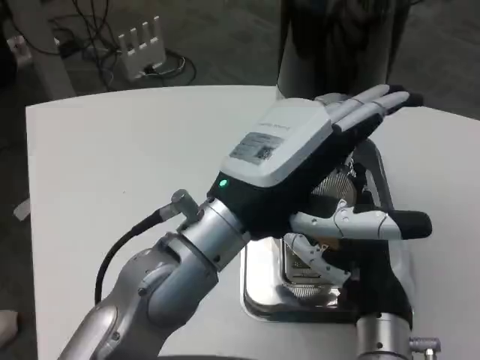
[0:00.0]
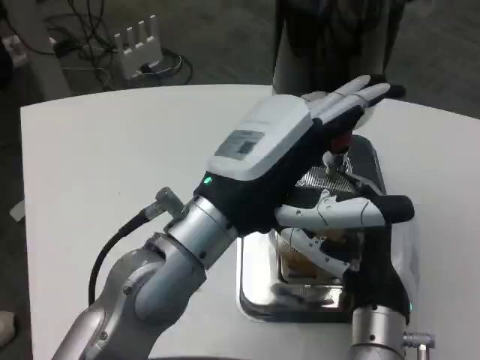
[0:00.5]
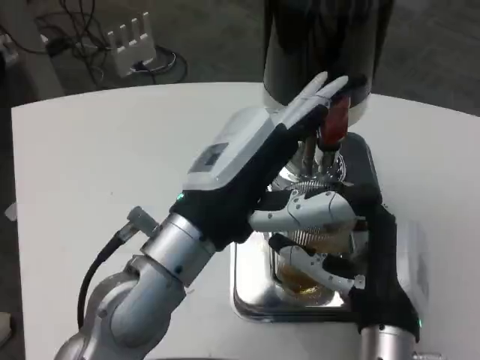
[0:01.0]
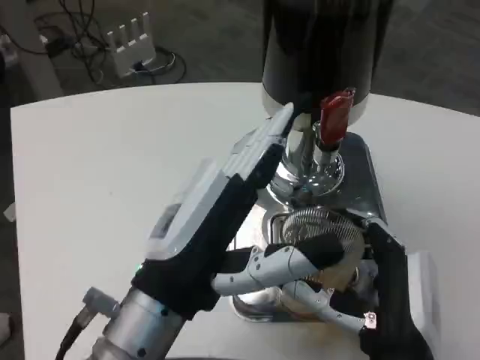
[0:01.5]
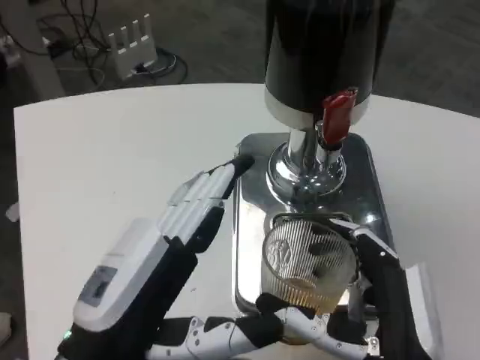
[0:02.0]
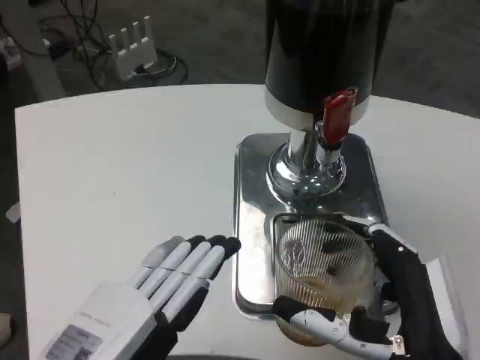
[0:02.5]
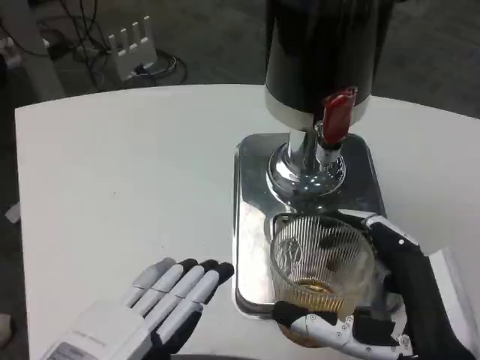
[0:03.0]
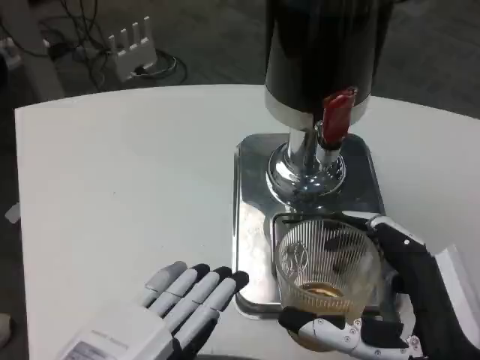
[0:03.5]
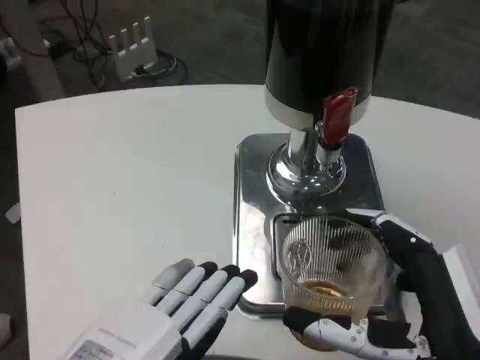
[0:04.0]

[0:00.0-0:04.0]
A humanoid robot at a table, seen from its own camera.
Task of the whole recording: Grasp the cup under the faucet to collect the drink, then remove the cup.
0:00.0 to 0:02.0: The left hand is displaced backward, to the left and downward by approximately 15 cm. The right hand shifts roughly 10 cm backward.
0:02.0 to 0:04.0: The right hand shifts by roughly 5 cm; the left hand shifts by about 5 cm.

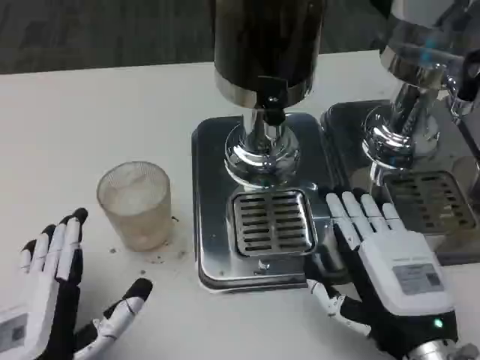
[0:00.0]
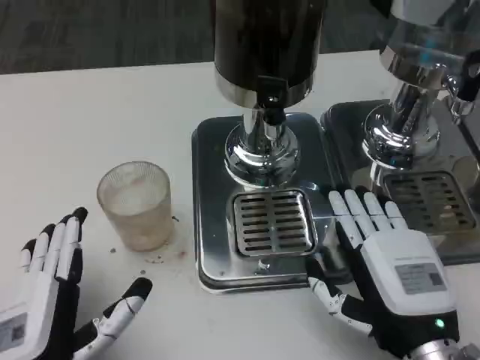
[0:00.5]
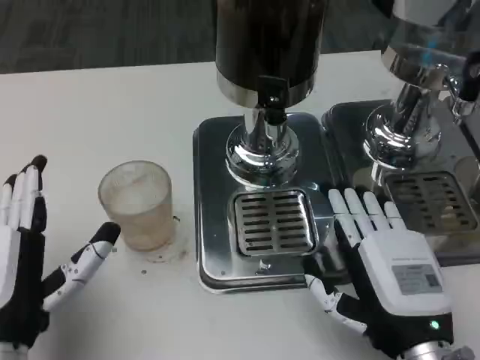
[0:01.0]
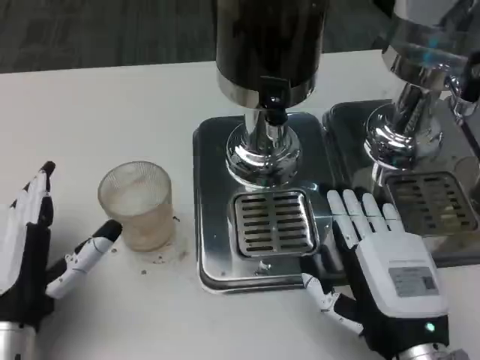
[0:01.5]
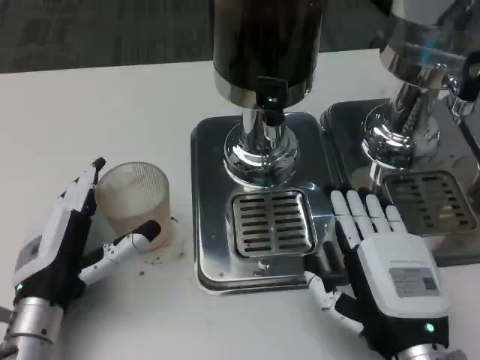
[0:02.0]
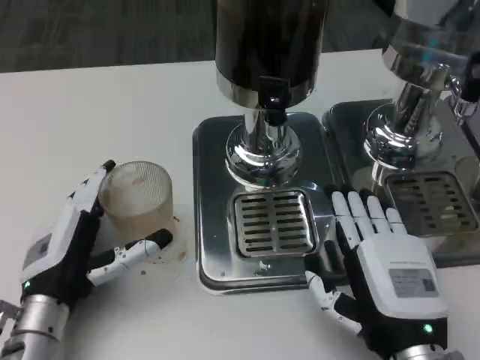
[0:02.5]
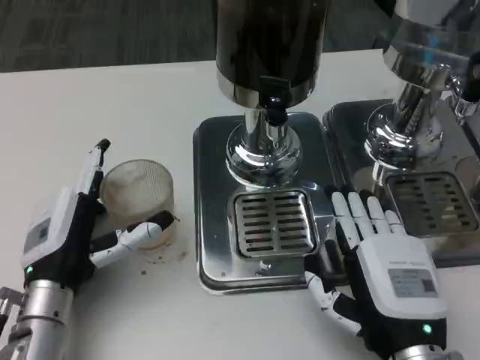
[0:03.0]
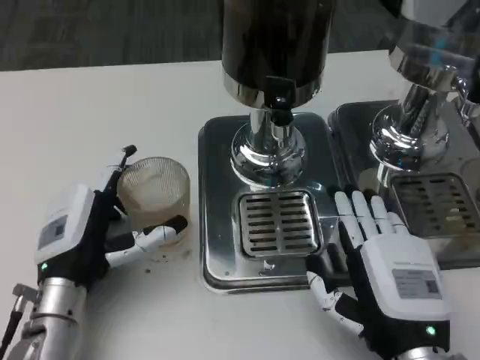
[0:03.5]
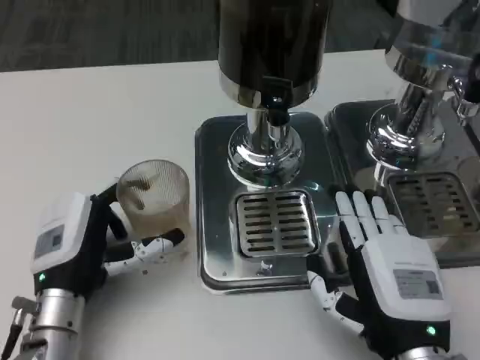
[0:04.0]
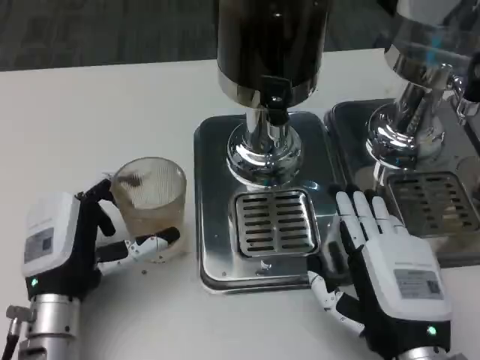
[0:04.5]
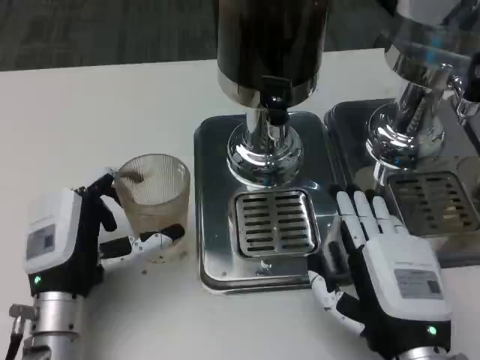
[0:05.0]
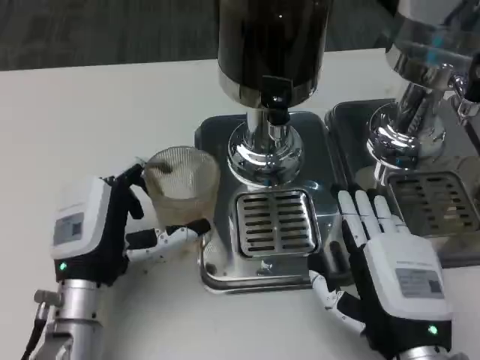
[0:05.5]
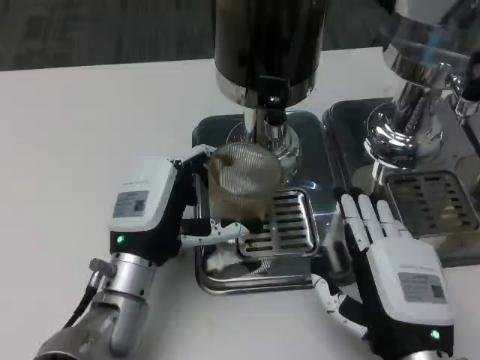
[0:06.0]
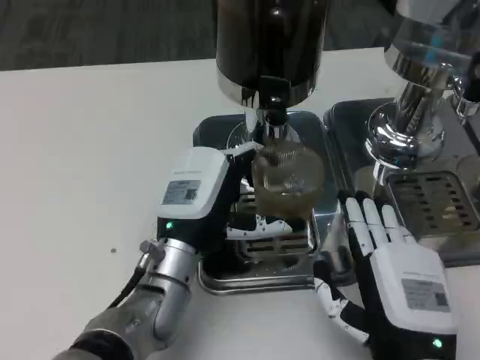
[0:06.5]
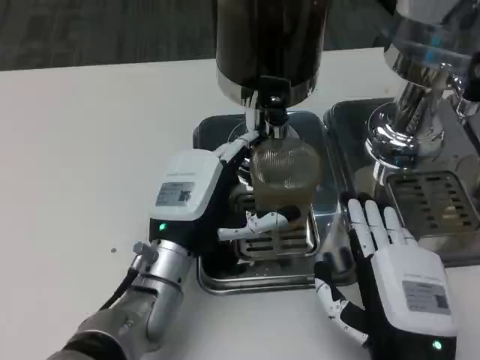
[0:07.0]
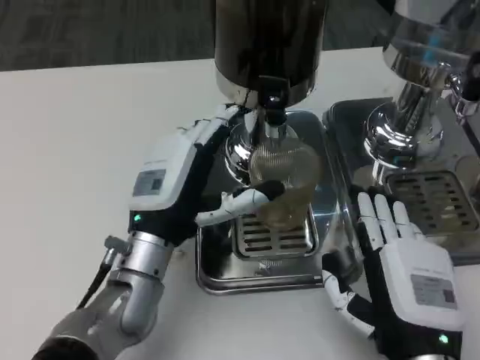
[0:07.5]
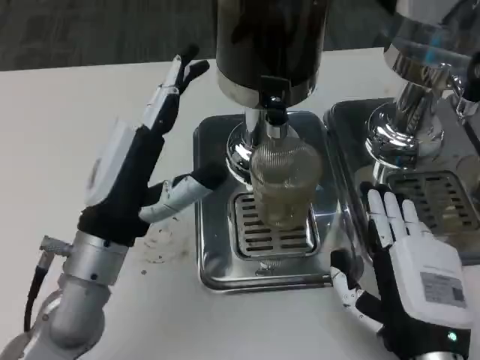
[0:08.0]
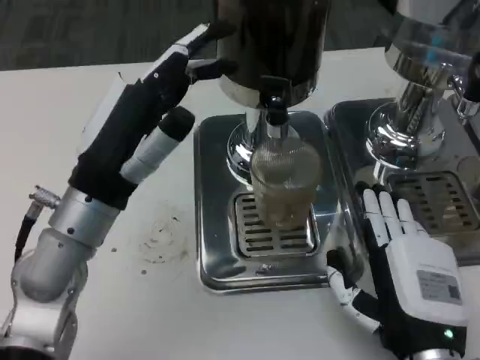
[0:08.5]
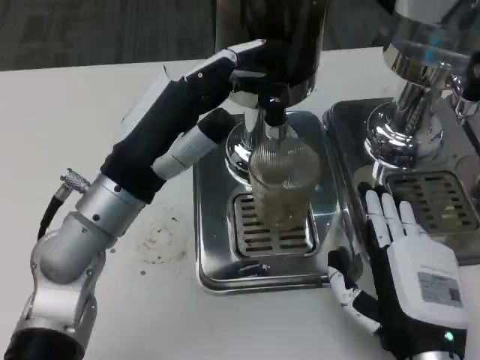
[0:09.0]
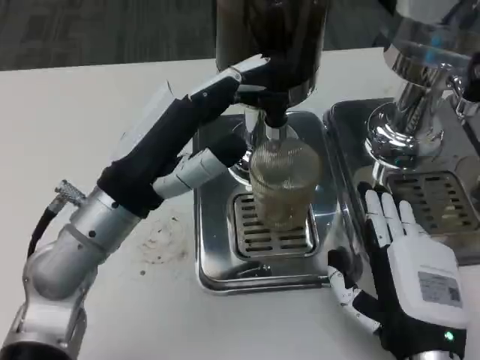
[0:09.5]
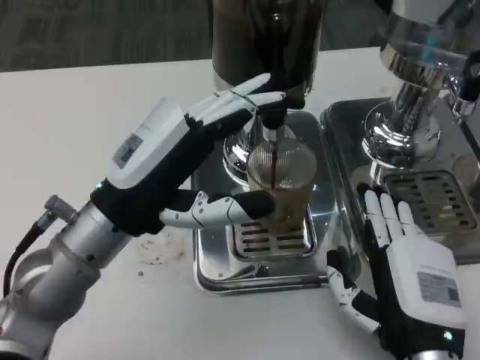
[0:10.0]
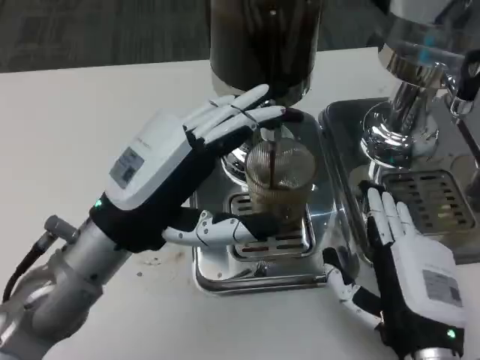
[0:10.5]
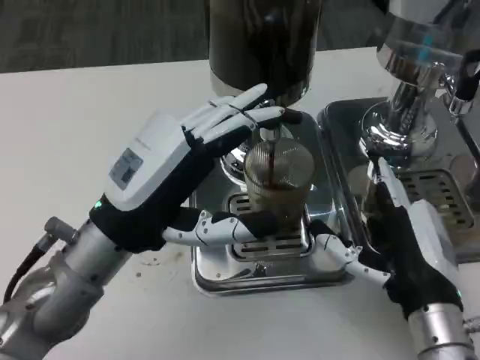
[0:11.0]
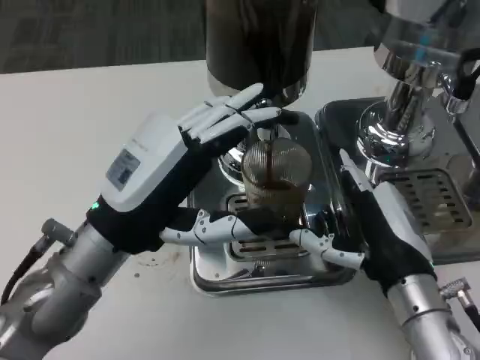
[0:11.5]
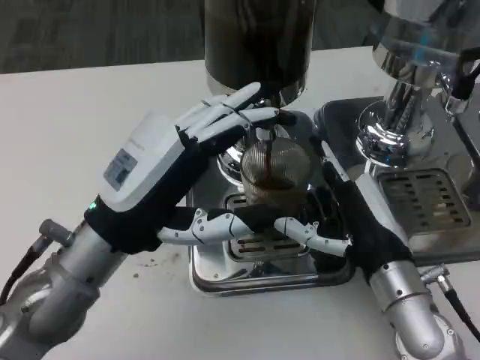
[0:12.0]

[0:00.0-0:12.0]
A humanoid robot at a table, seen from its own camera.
Task of the whole recording: Grasp the cup under the faucet to collect the drink, then remove the cup.
0:00.0 to 0:02.0: The left hand travels forward by some 10 cm.
0:04.0 to 0:06.0: The left hand goes roughly 5 cm to the right.
0:06.0 to 0:08.0: The left hand heads upward, covering some 5 cm.
0:10.0 to 0:12.0: The right hand is displaced forward by roughly 10 cm.

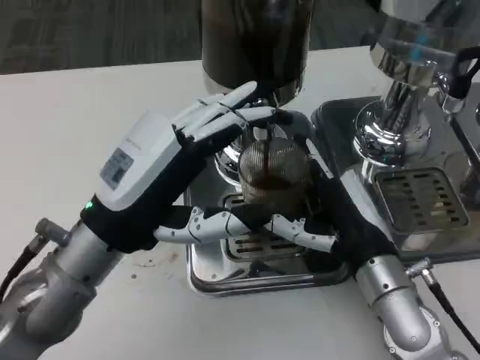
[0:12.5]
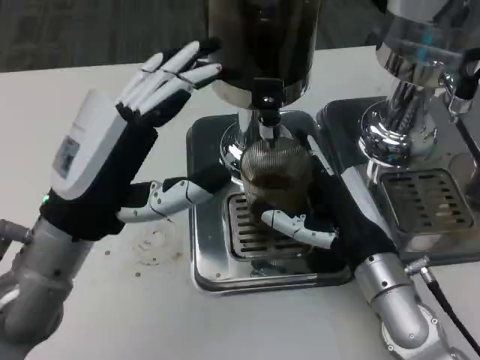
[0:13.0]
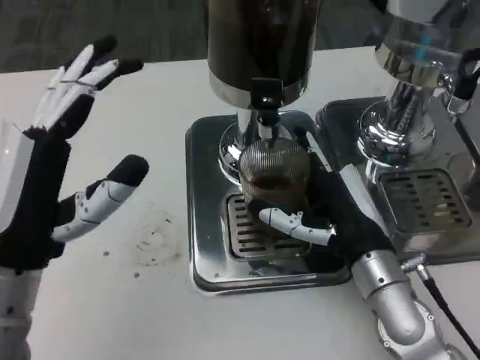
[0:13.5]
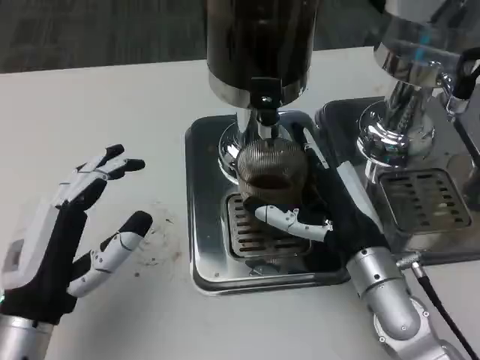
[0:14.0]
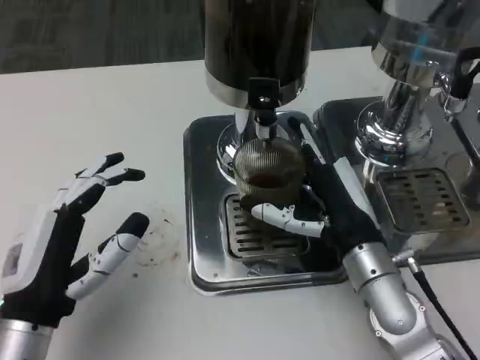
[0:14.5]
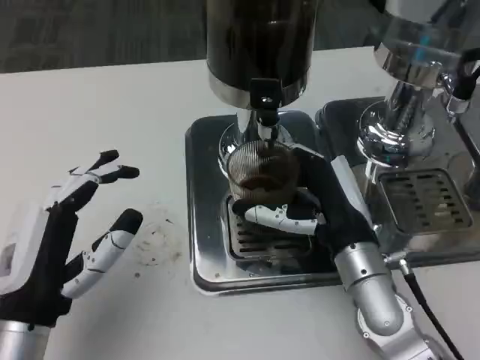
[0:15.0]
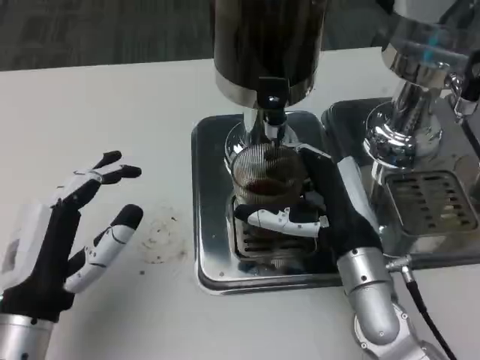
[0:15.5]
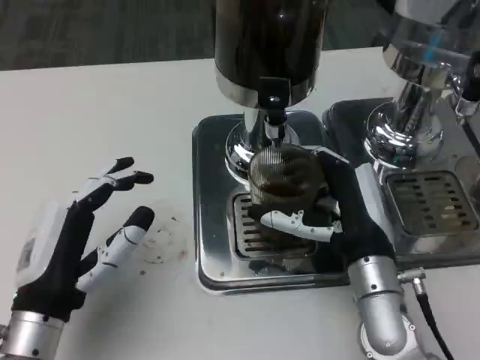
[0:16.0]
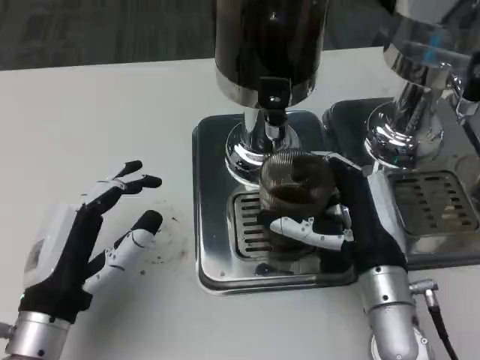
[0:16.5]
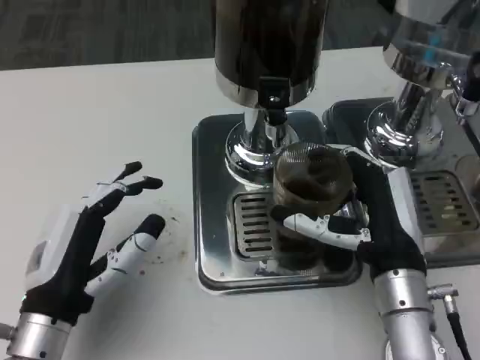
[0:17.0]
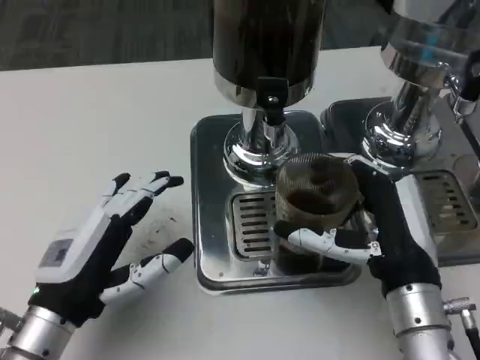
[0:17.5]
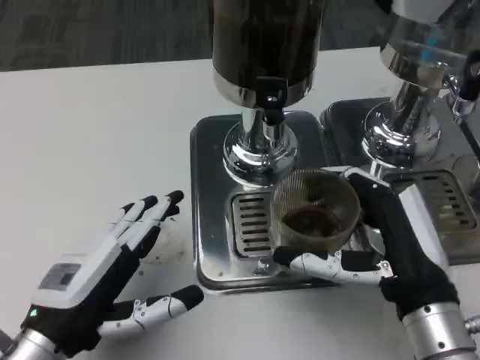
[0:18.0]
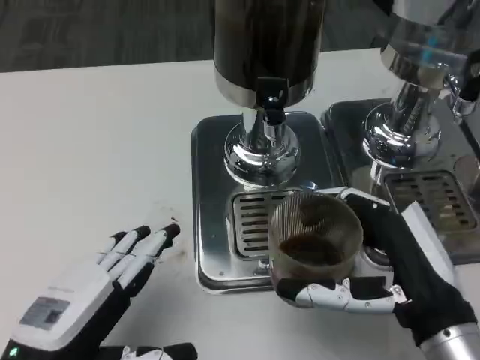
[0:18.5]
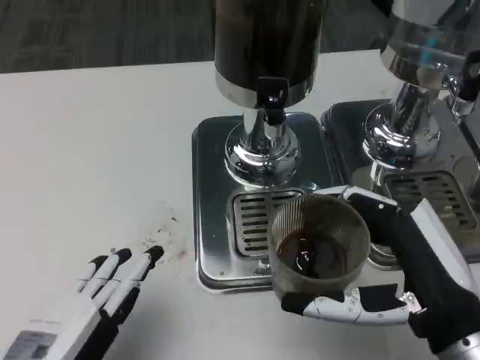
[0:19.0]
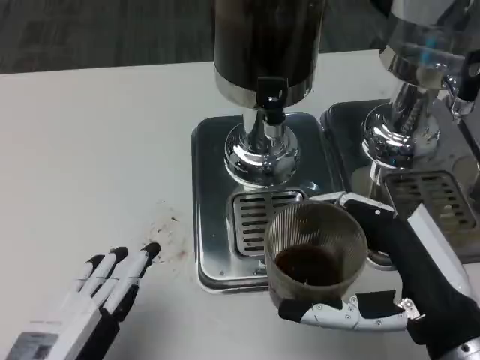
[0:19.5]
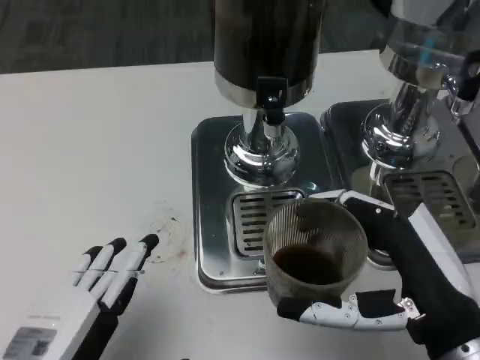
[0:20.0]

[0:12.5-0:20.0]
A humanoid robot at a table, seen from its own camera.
Task of the whole recording: Grasp the cup under the faucet to collect the drink, then remove the cup.
0:12.5 to 0:14.5: The left hand travels downward and backward by roughly 10 cm.
0:16.5 to 0:18.0: The right hand is displaced backward by some 5 cm.
0:18.0 to 0:20.0: The left hand is displaced backward by about 5 cm.

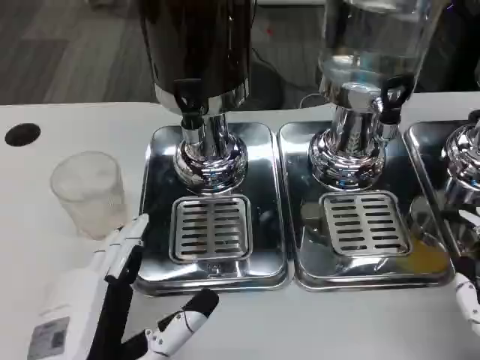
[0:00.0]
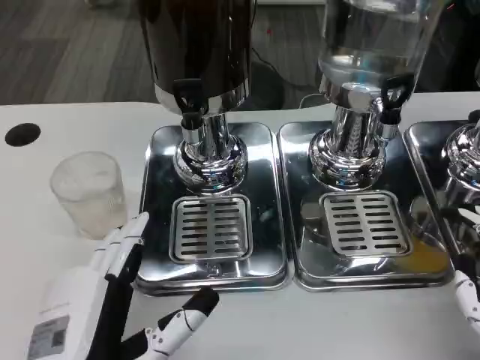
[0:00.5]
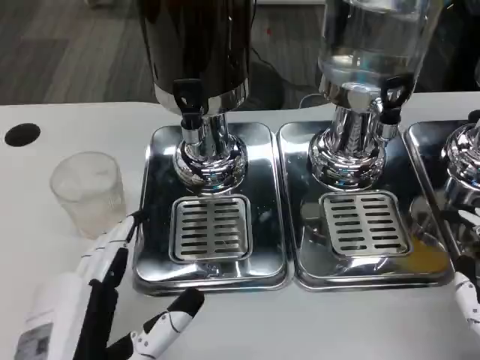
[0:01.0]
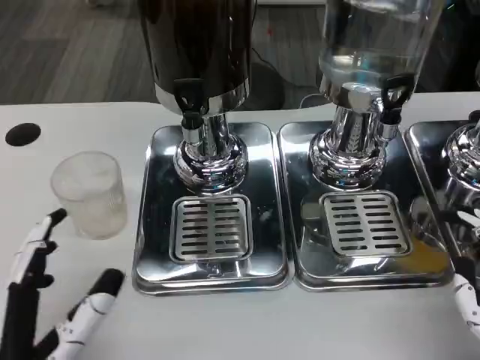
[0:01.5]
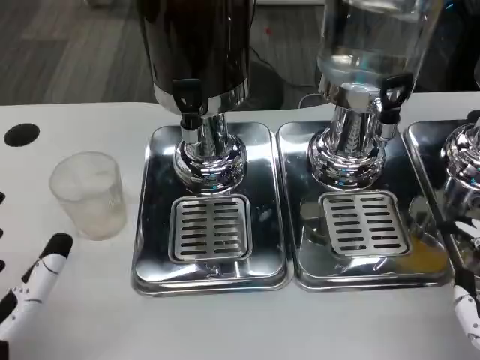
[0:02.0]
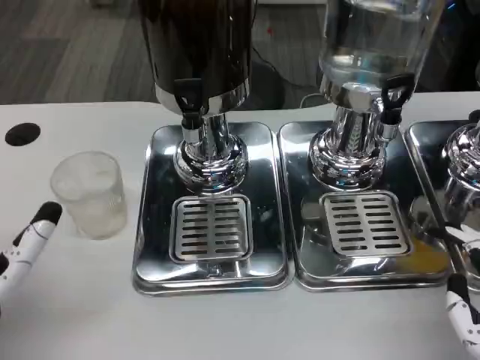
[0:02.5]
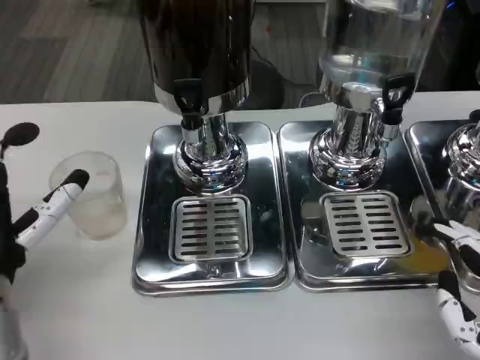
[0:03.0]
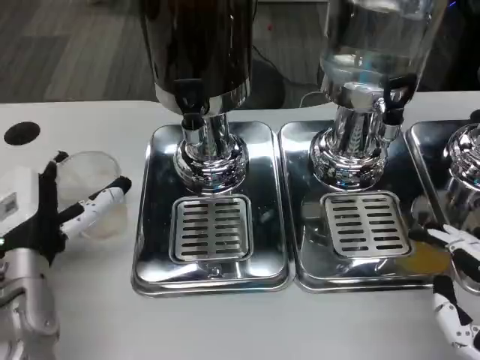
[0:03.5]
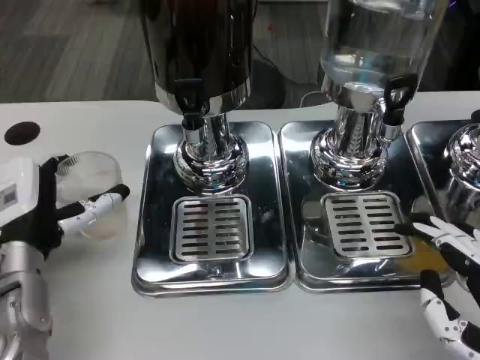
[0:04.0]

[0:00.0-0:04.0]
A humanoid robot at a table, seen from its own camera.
Task of the whole recording: Grasp the cup under the faucet to collect the drink, then remove the cup.
0:00.0 to 0:02.0: The left hand moves to the left, approximately 5 cm.
0:02.0 to 0:04.0: The left hand goes roughly 15 cm forward.
